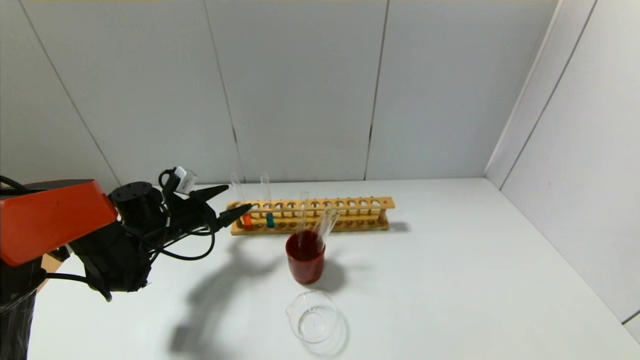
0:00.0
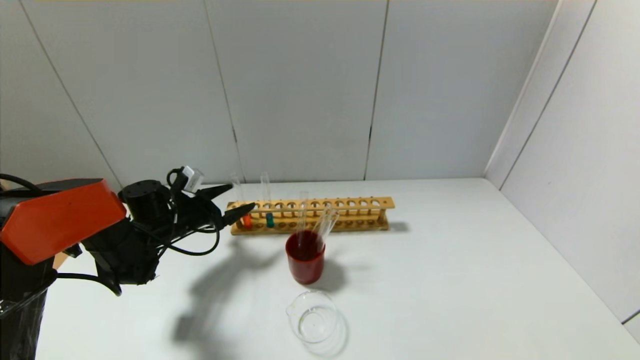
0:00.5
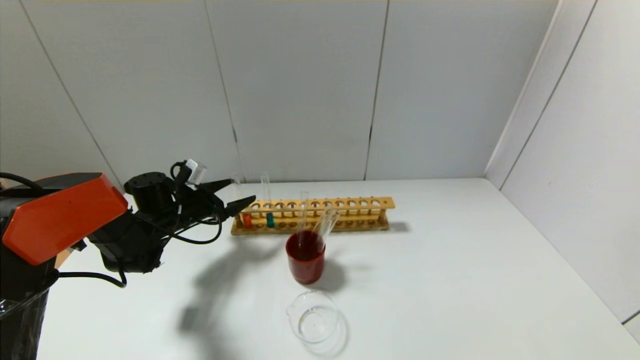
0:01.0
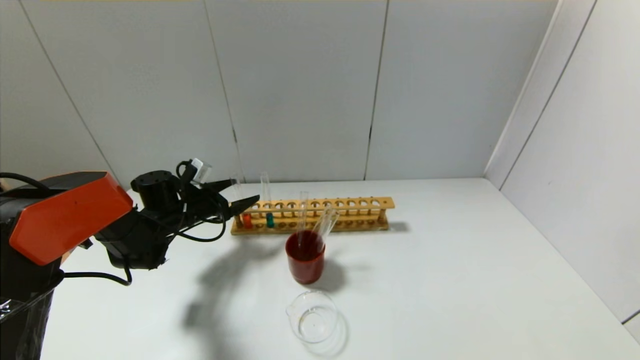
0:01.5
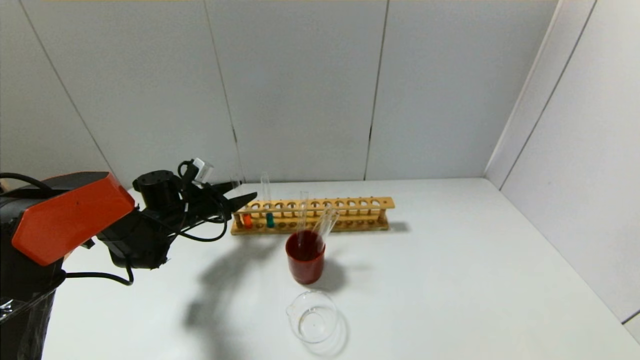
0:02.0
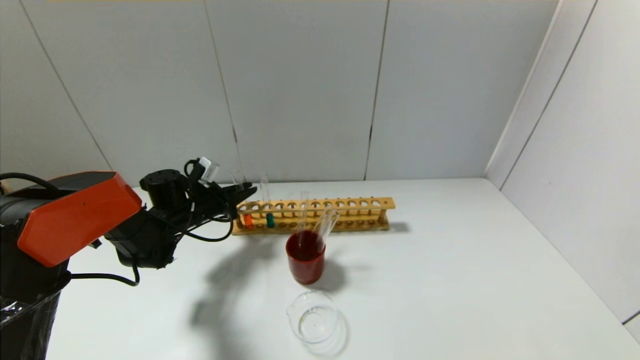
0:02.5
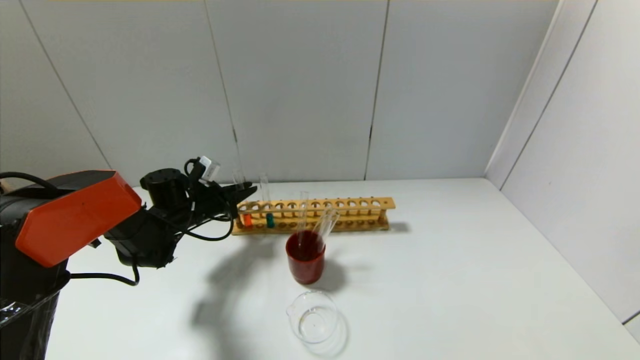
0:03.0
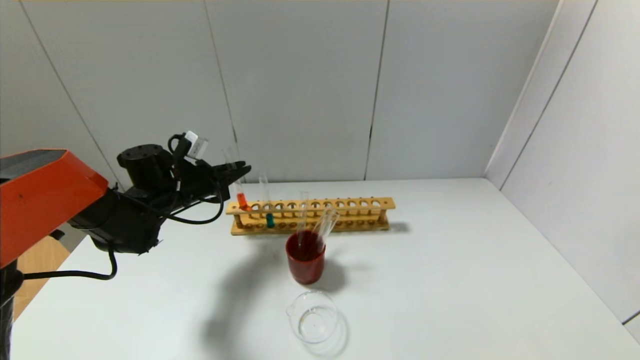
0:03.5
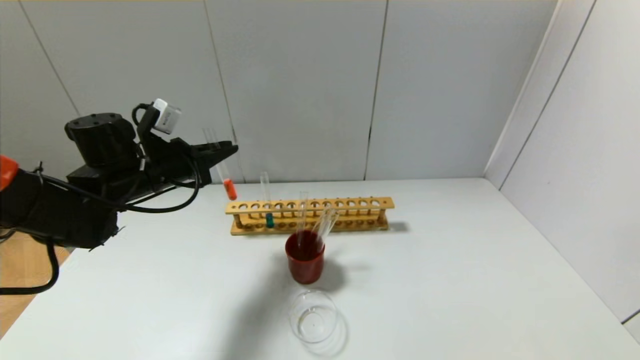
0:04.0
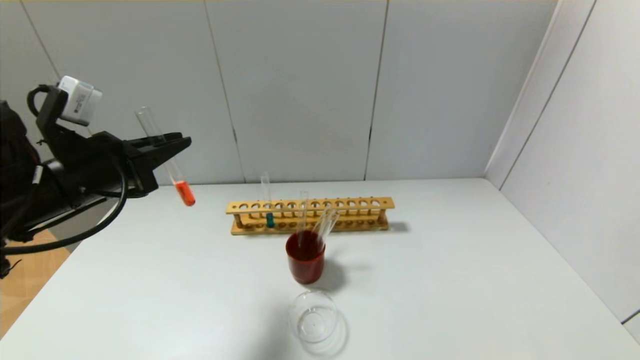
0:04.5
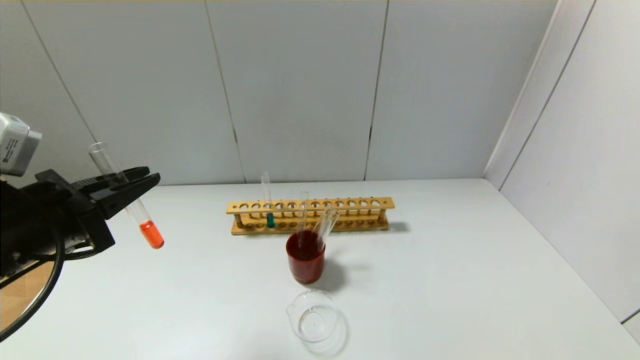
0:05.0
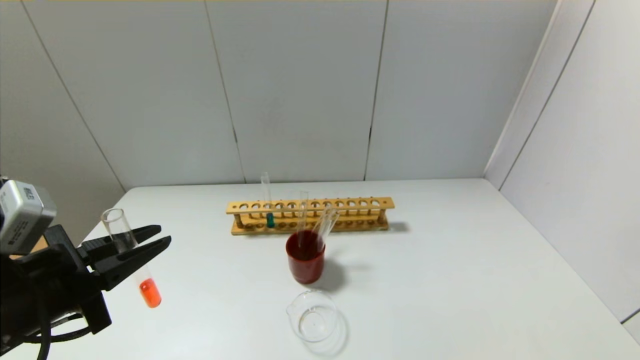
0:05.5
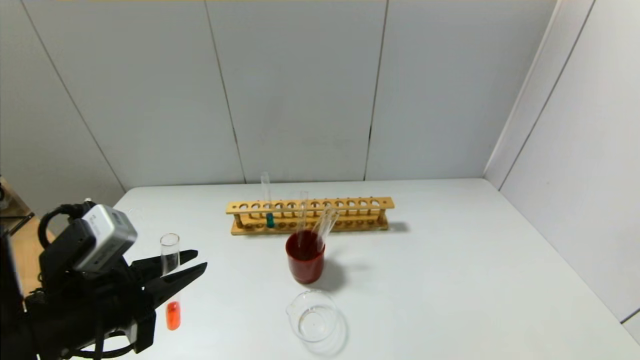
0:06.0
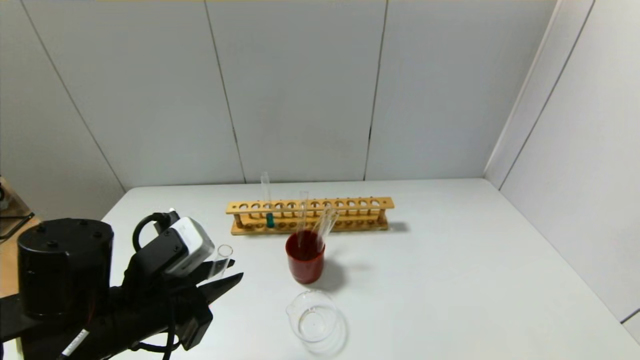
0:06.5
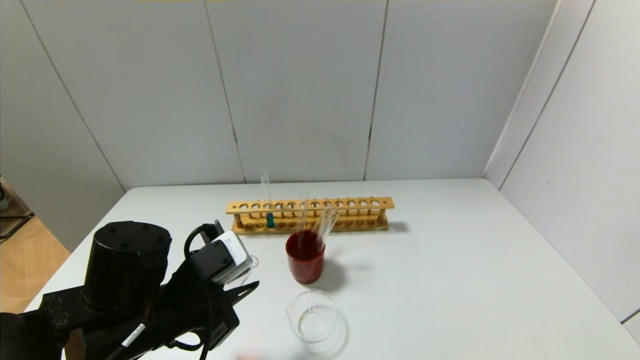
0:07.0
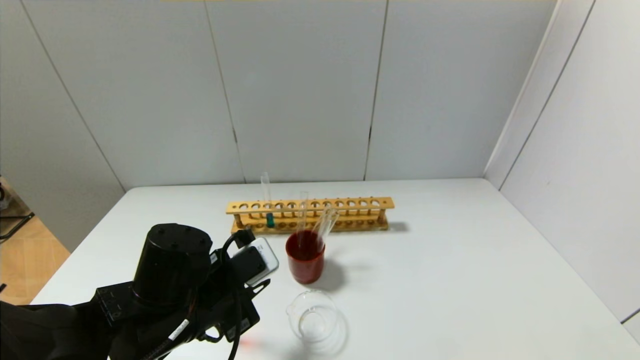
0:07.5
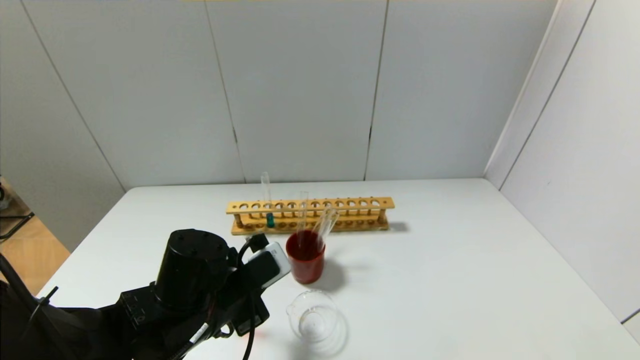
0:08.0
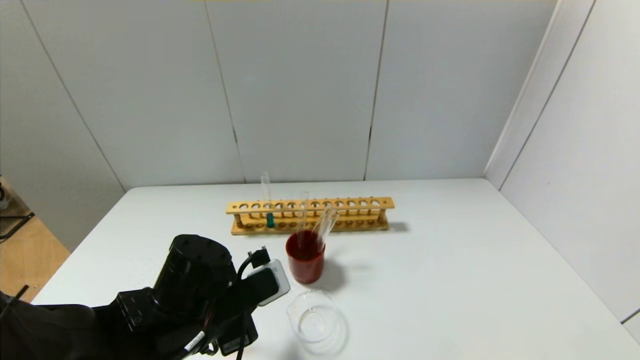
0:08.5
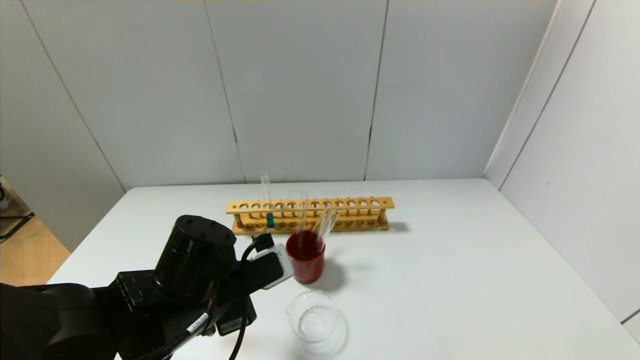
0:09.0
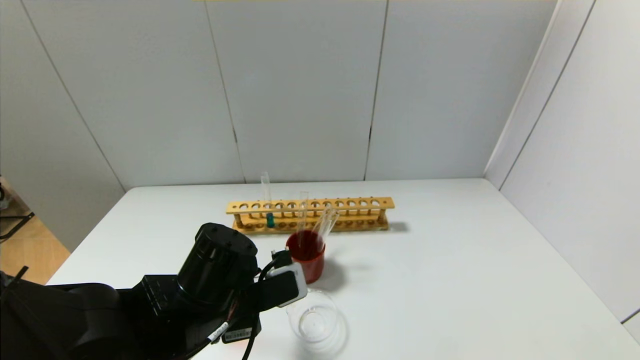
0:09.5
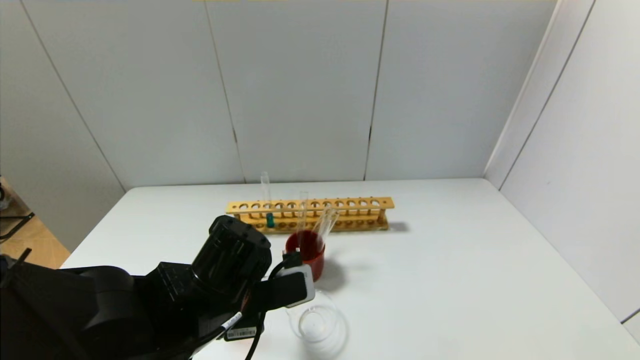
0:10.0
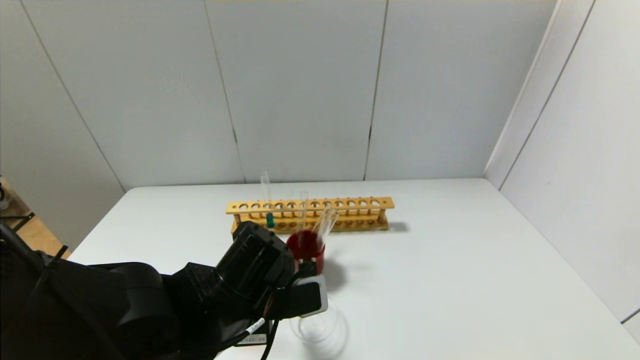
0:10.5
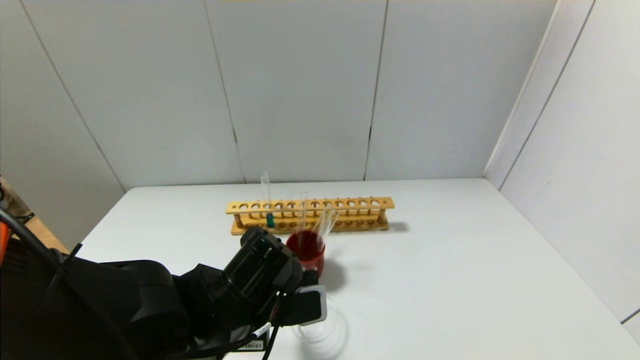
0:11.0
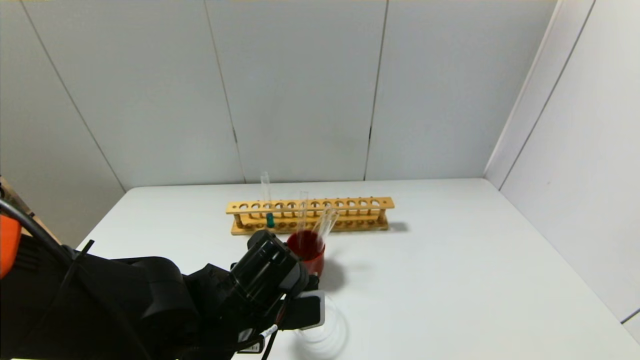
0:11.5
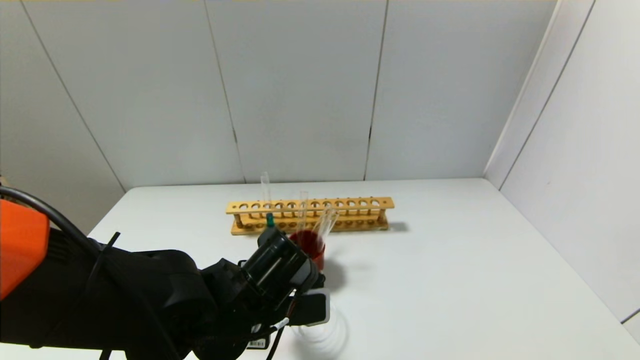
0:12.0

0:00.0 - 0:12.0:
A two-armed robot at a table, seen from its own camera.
Step, 0:00.0 - 0:02.0: Grasp the red reagent with the left gripper.
0:00.0 - 0:02.0: The left gripper closes.
0:02.0 - 0:04.0: The left gripper moves upward and backward, about 15 cm, and closes its fingers.
0:04.0 - 0:06.0: The left gripper is displaced backward by approximately 20 cm.
0:06.0 - 0:08.0: The left gripper travels to the right, downward and forward by about 15 cm.
0:10.0 - 0:12.0: The grippers move only a little.

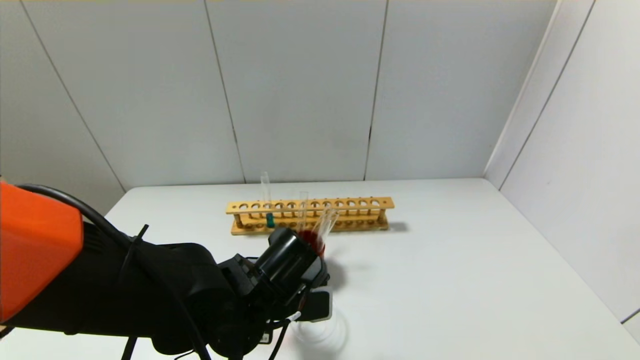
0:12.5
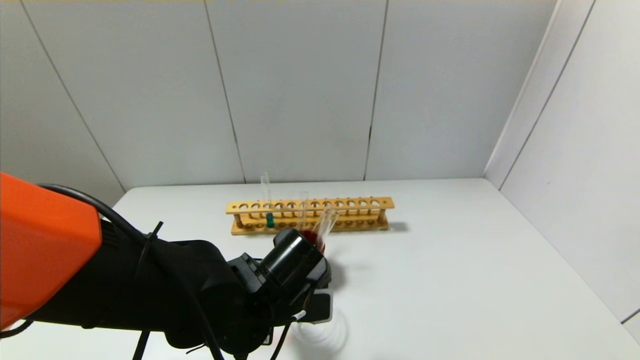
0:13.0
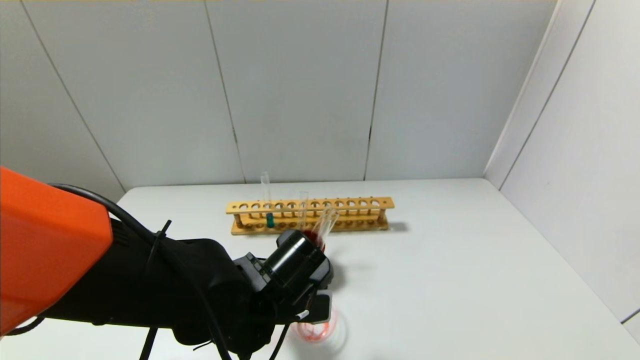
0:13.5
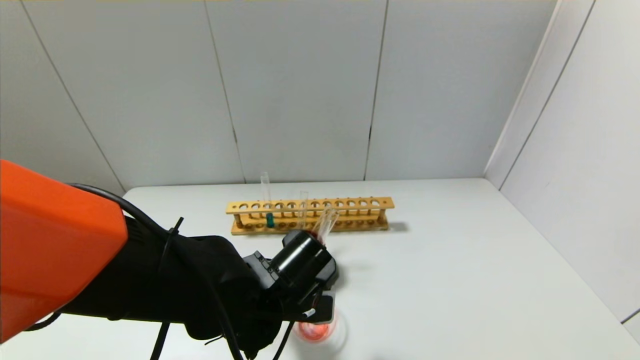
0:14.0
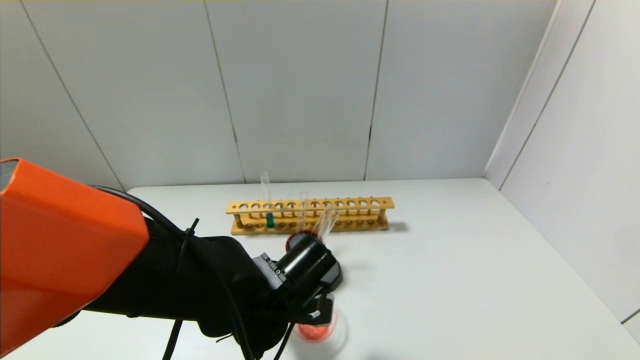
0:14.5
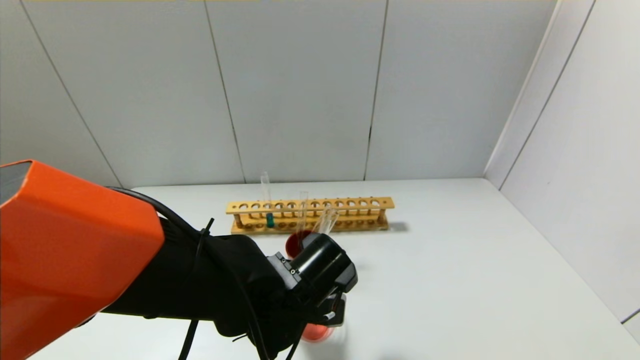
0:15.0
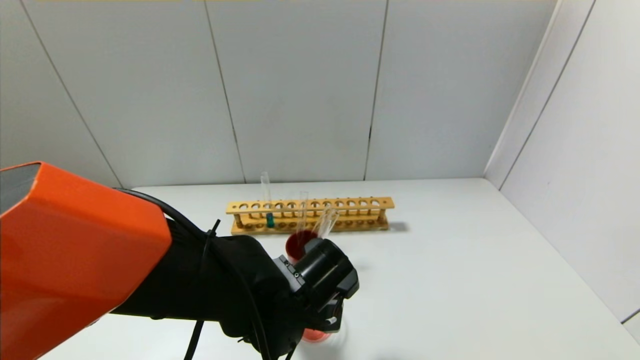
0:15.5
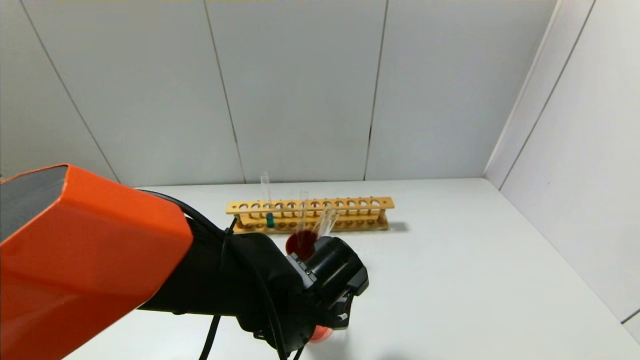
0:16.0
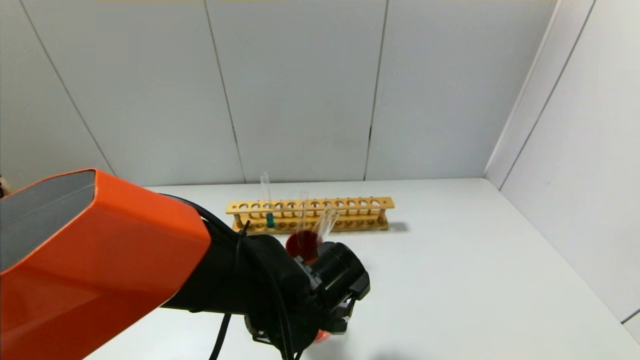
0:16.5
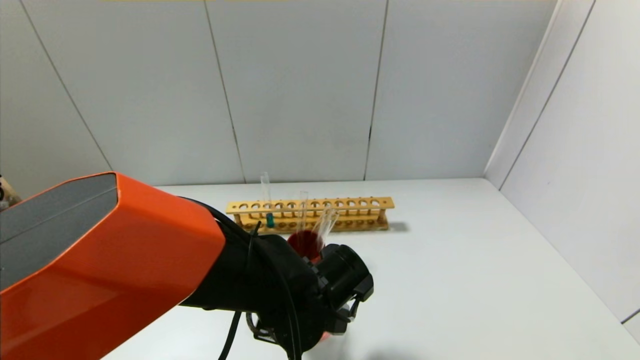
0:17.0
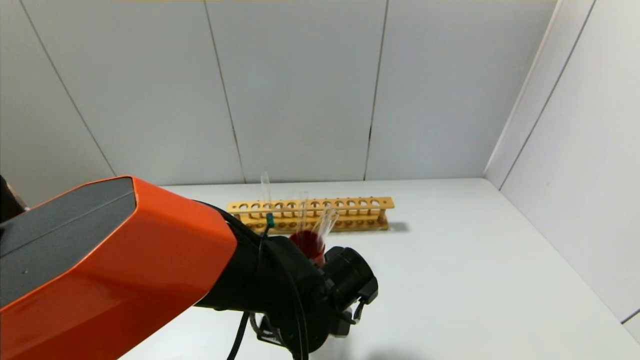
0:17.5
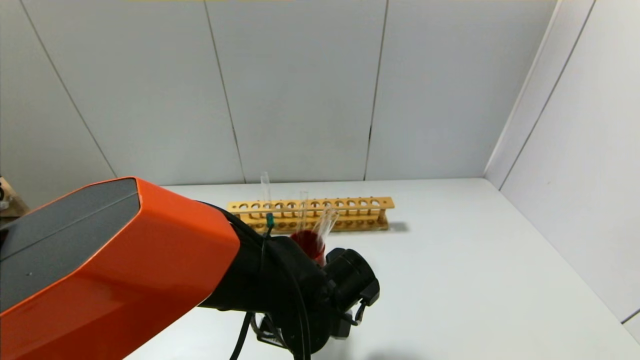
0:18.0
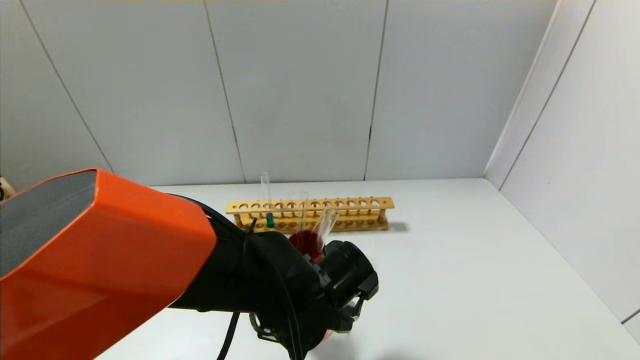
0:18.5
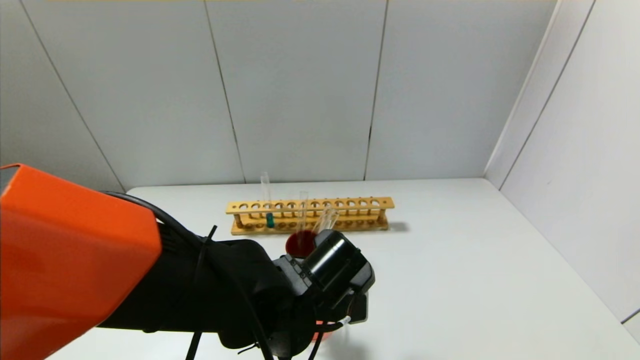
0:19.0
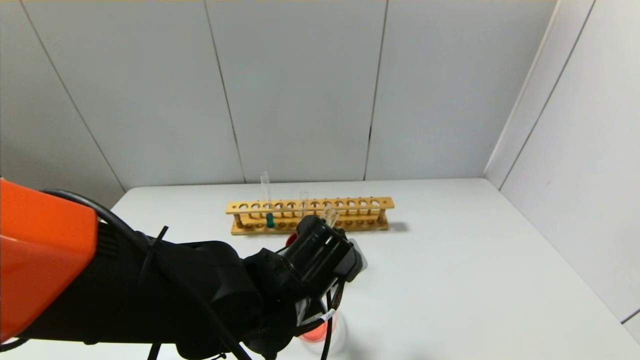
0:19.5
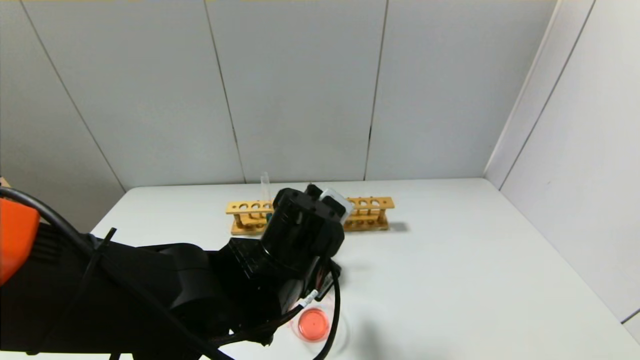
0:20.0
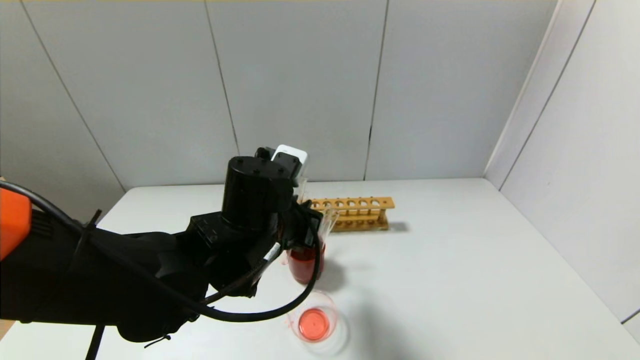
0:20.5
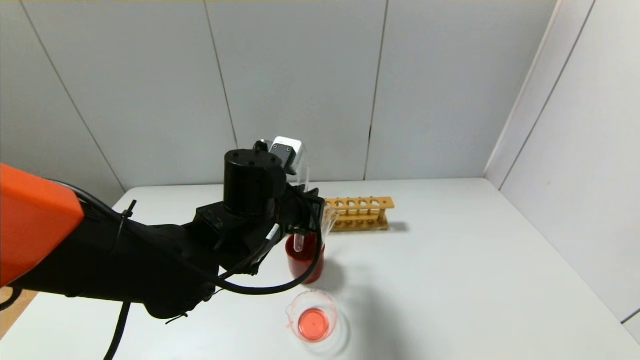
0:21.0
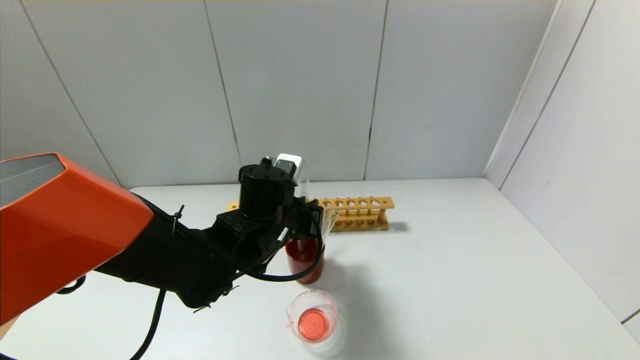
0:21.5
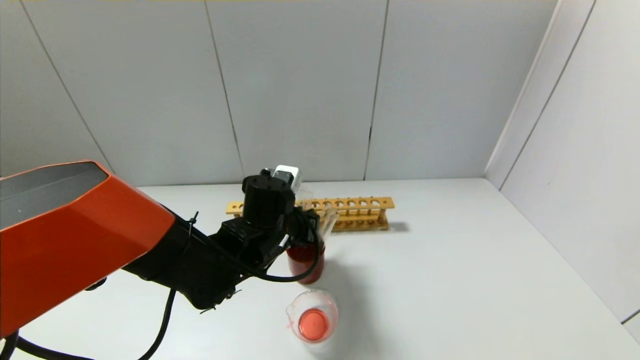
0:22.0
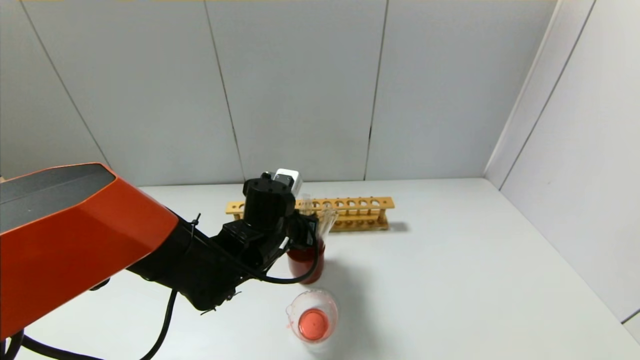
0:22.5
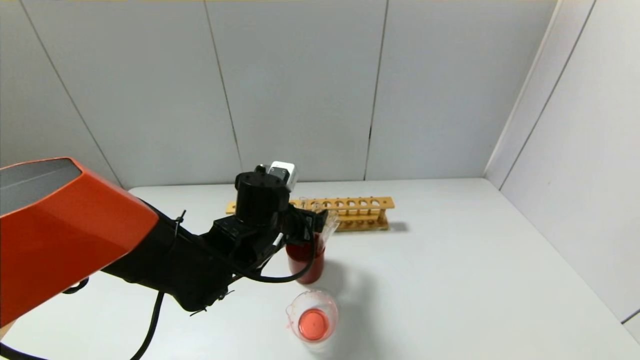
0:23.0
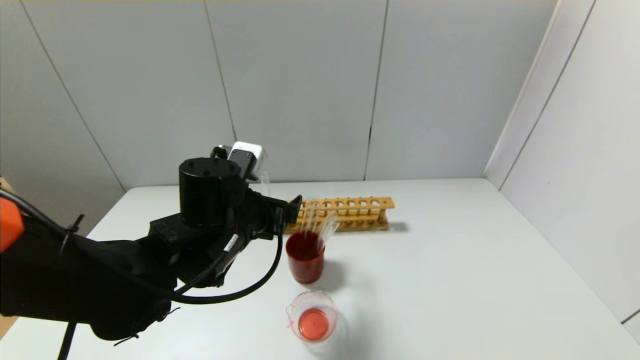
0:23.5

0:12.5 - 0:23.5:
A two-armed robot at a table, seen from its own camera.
Step, 0:12.5 - 0:19.0: Pour the red reagent into the graduated cylinder with the left gripper.
Step, 0:19.5 - 0:22.0: Place the test tube into the brown cup with the left gripper.
0:12.5 - 0:16.0: The grippers make only small movements.
0:16.0 - 0:18.0: The grippers make only small movements.
0:18.0 - 0:20.0: The left gripper travels upward by roughly 10 cm.
0:20.0 - 0:21.5: The left gripper is displaced forward by about 10 cm.
0:21.5 - 0:23.5: The left gripper shifts by about 5 cm, and opens.
